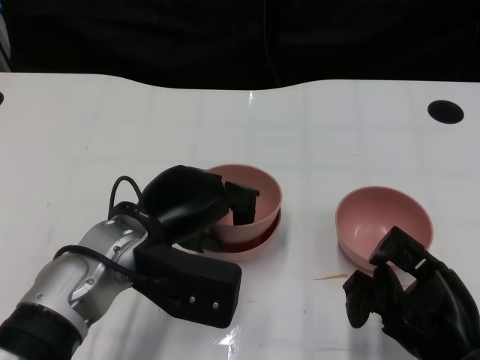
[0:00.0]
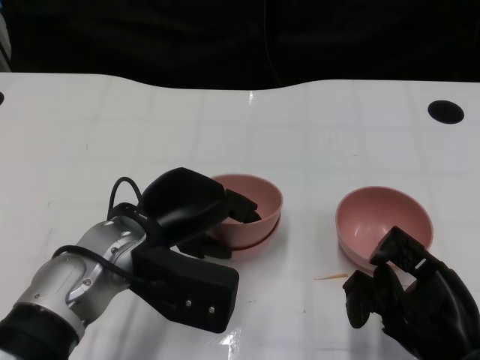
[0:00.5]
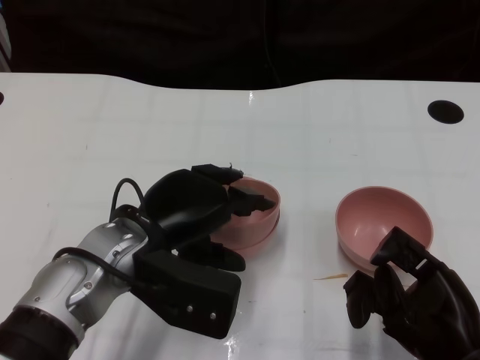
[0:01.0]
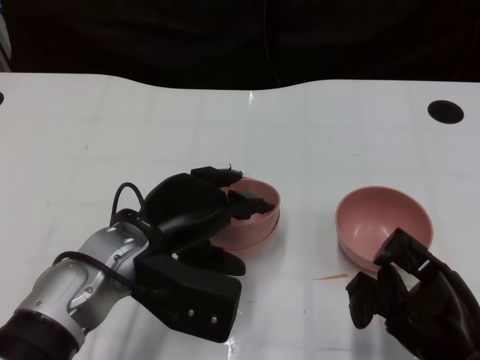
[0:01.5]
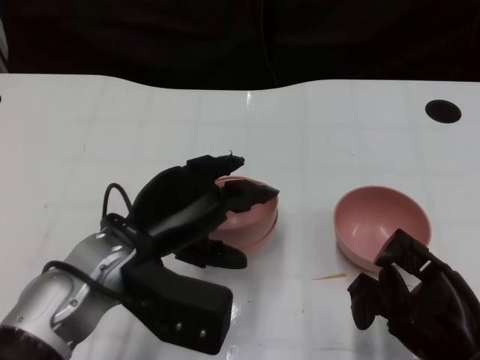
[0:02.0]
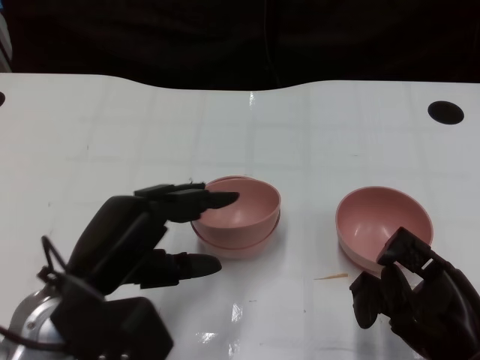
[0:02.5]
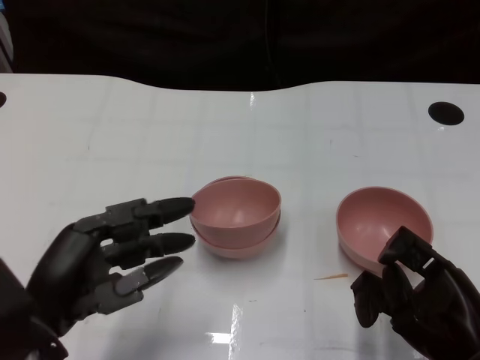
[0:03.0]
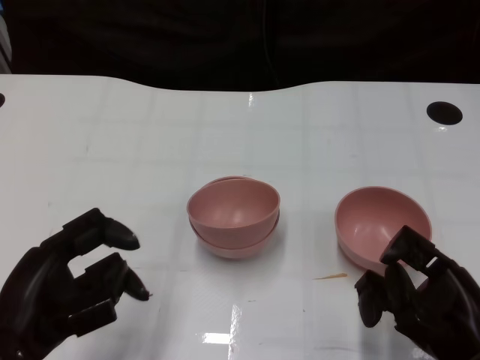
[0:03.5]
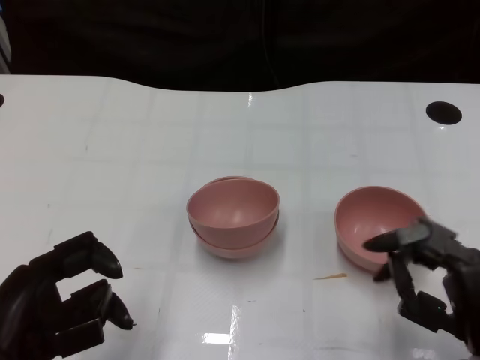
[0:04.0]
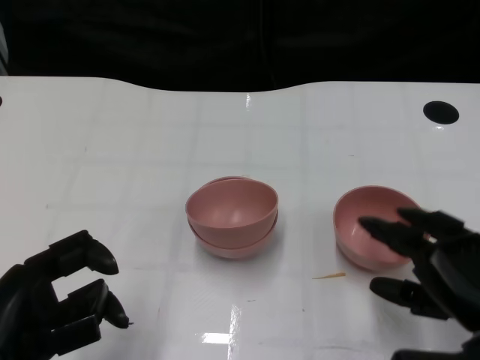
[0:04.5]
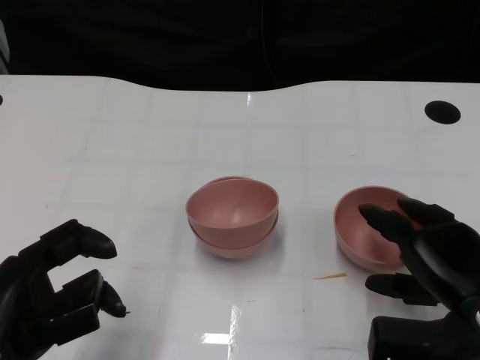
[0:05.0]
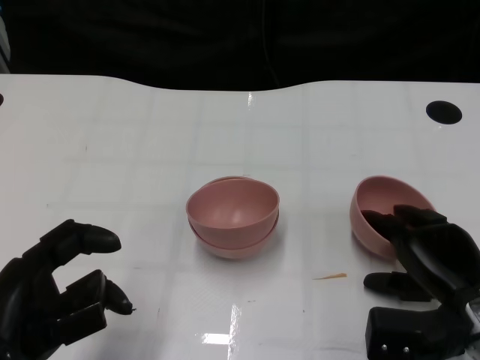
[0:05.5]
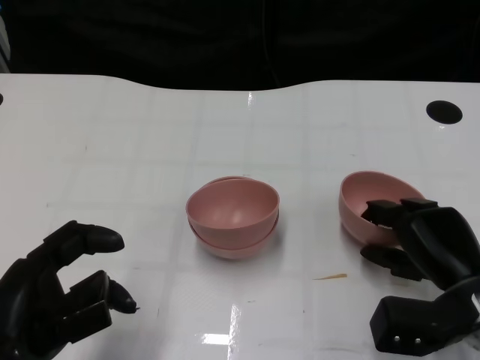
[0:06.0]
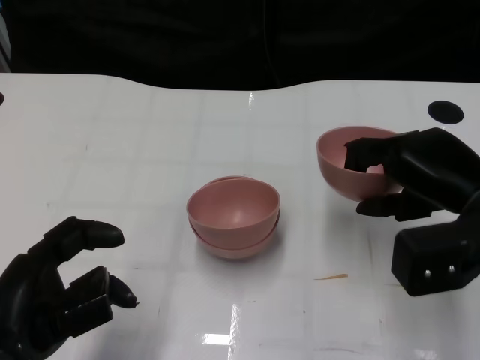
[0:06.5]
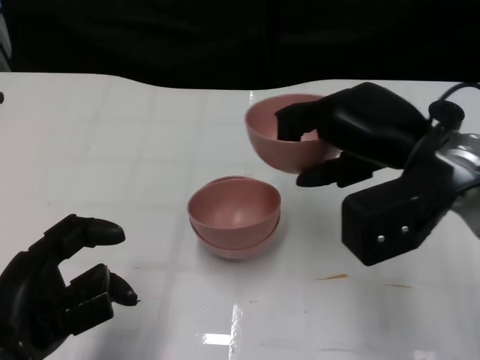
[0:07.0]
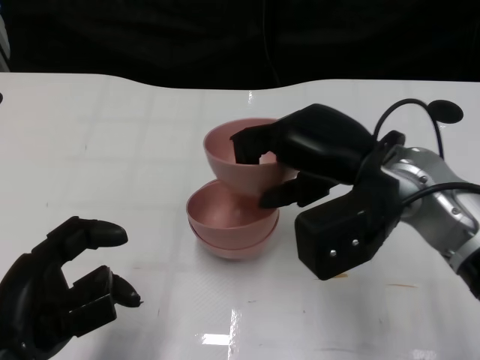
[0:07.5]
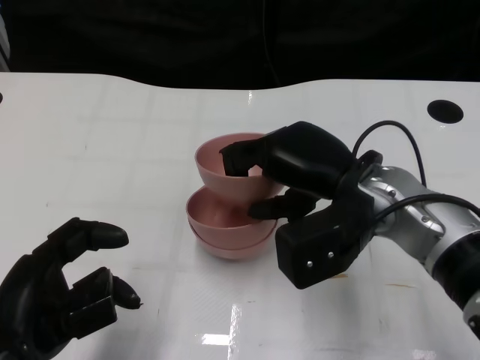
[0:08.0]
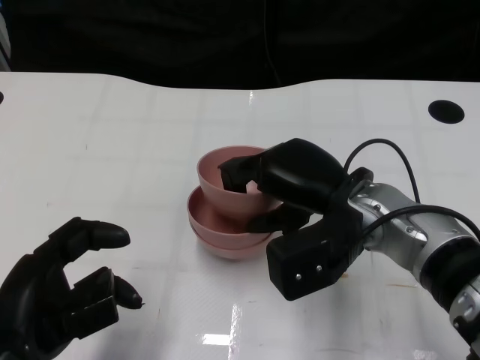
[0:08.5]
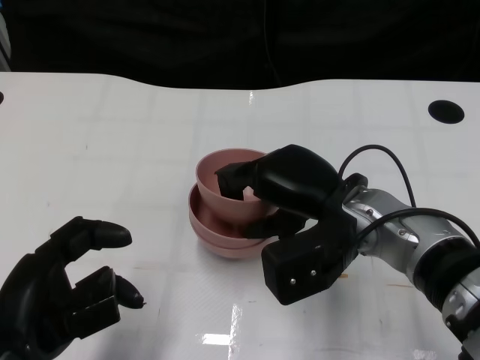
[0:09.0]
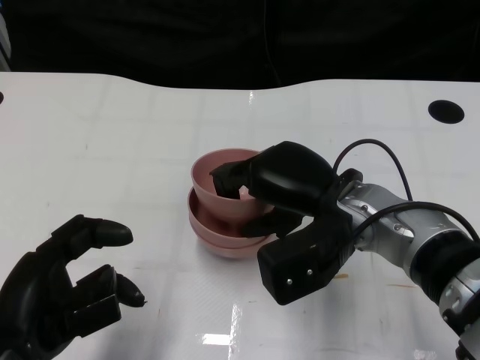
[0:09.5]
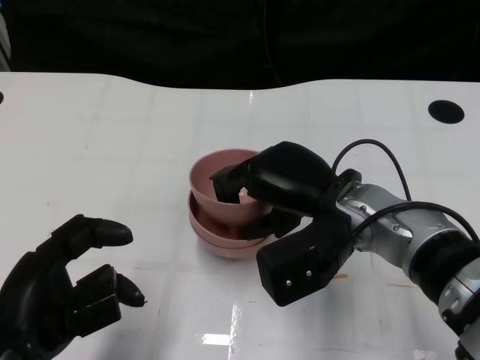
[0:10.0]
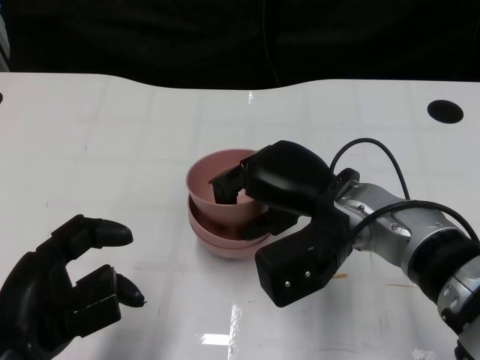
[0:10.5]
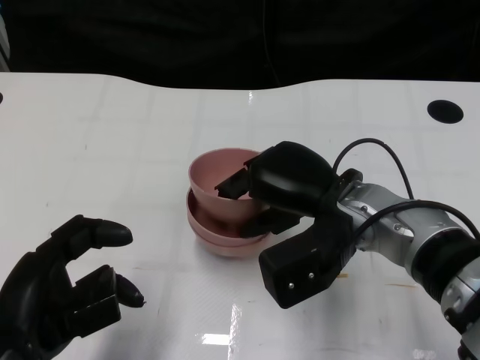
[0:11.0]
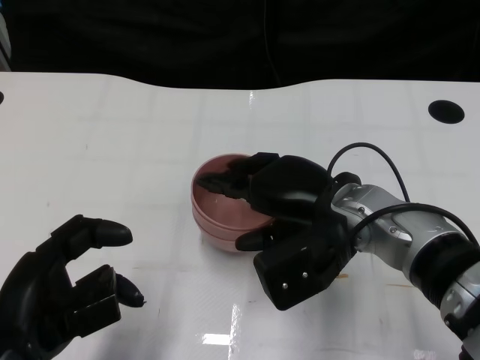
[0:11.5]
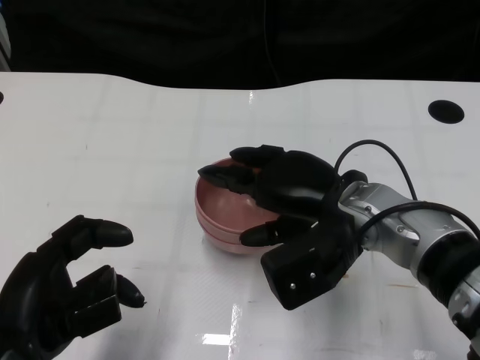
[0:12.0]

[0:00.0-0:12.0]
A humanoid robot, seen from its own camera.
Task of the whole recording: Pick up the bowl on one side of the table and place it on top of the middle bowl, then pick up the bowl on the other side of the table and place it on top of the middle bowls.
Step, 0:02.0 to 0:06.0: Grasp the bowl on the right with the right gripper.
Step, 0:06.5 to 0:11.5: Place the bowl on the right onto the bowl in the middle with right gripper.
0:00.0 to 0:02.0: The hands stay close to where they were, moving slightly.
0:02.0 to 0:04.0: The left hand is displaced backward and to the left by about 15 cm.
0:04.0 to 0:06.0: The right hand heads forward, covering about 10 cm.
0:06.0 to 0:08.0: The right hand shifts roughly 15 cm upward, to the left and forward.
0:08.0 to 0:12.0: The hands stay close to where they were, moving slightly.

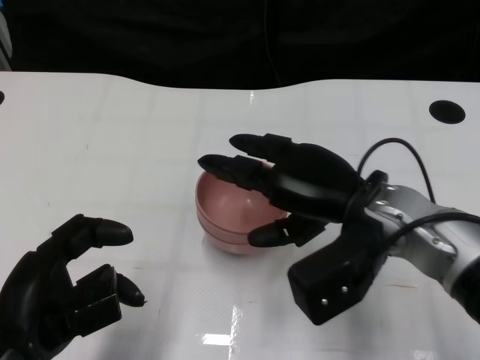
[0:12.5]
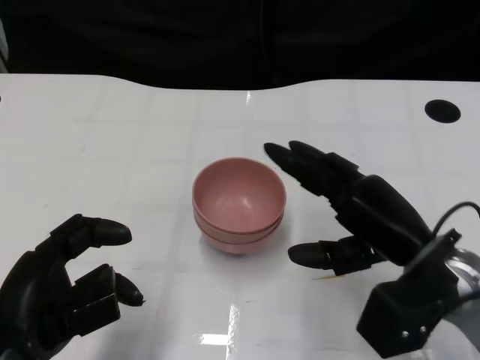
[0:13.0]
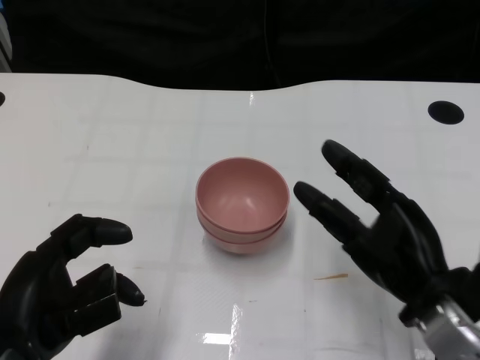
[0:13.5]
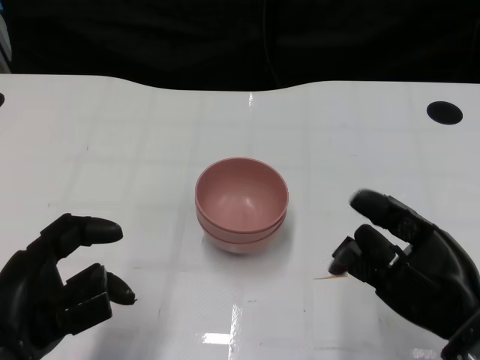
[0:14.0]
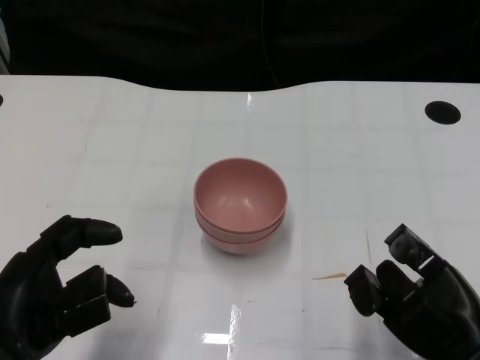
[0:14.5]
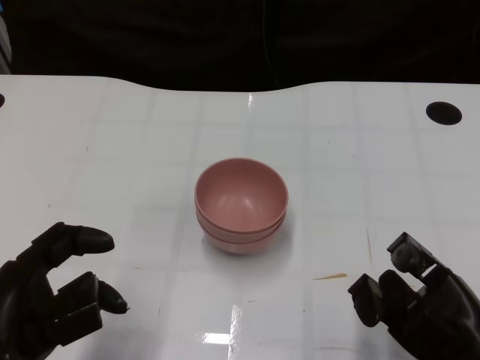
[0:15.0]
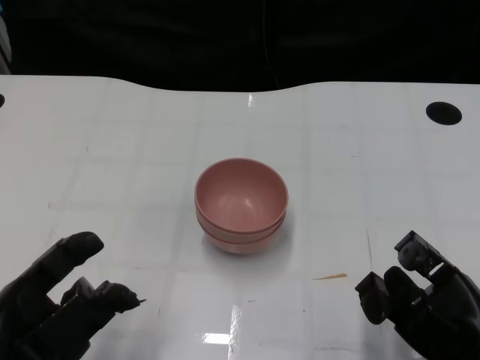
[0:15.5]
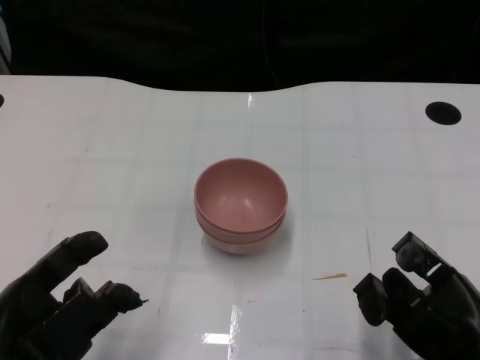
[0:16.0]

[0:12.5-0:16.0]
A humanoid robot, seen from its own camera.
Task of the whole recording: Pick up the bowl on one side of the table and place it on top of the middle bowl, then pick up the bowl on the other side of the table and place it on top of the middle bowls.
0:12.5 to 0:14.5: The right hand shifts some 20 cm backward, to the right and downward.

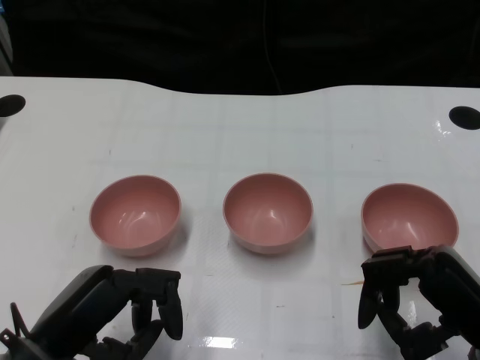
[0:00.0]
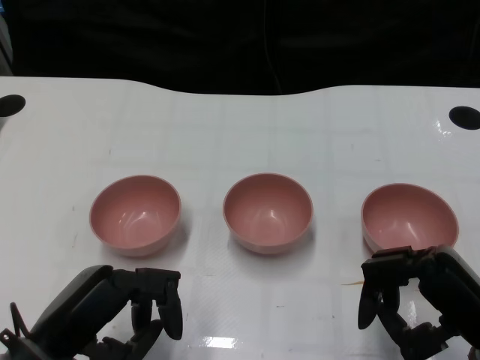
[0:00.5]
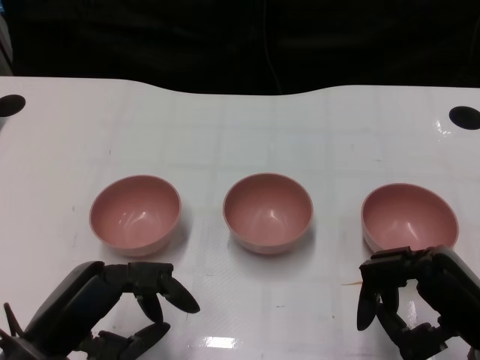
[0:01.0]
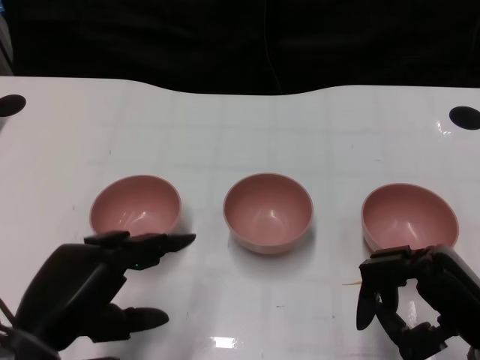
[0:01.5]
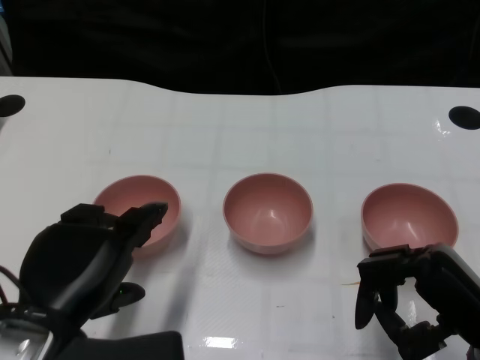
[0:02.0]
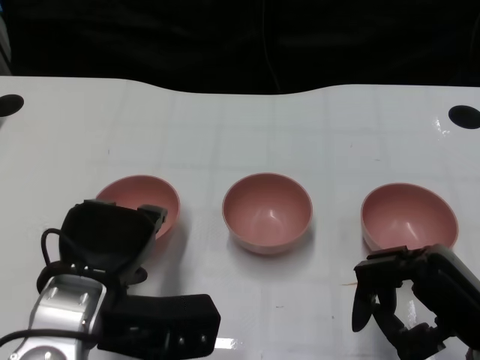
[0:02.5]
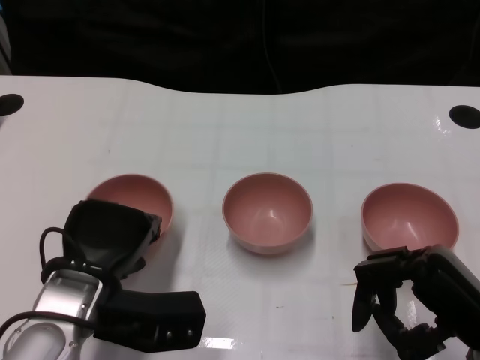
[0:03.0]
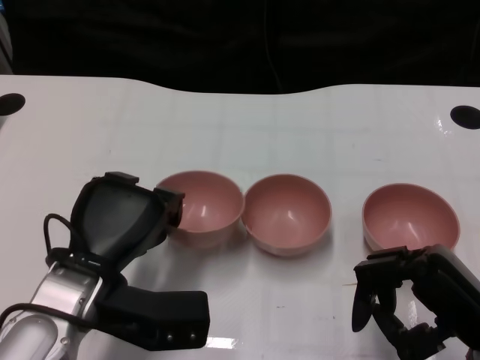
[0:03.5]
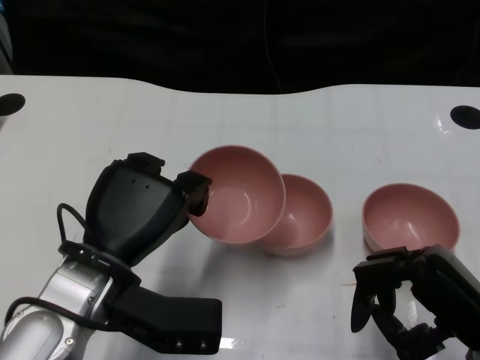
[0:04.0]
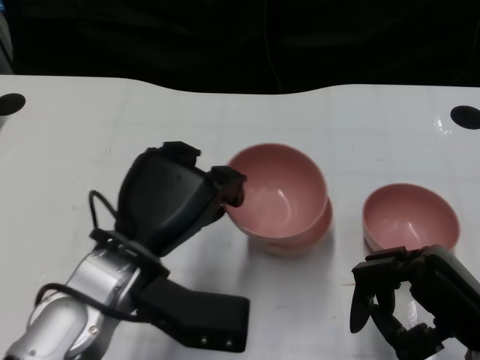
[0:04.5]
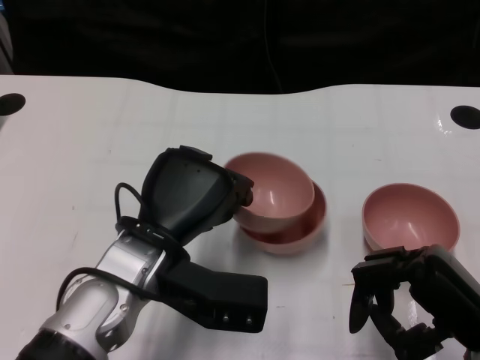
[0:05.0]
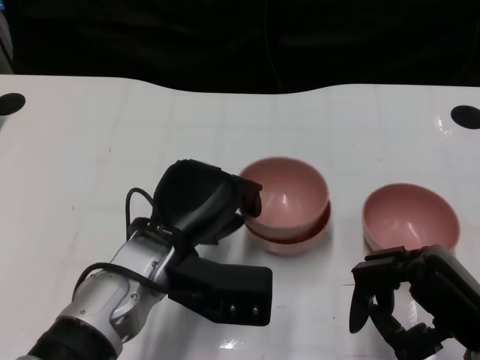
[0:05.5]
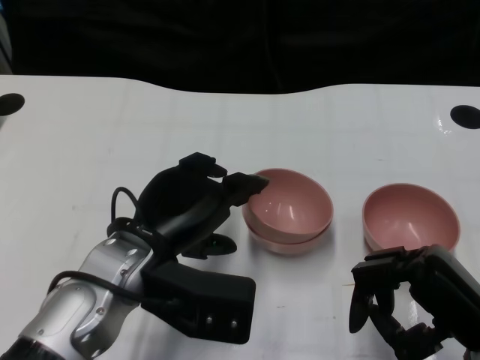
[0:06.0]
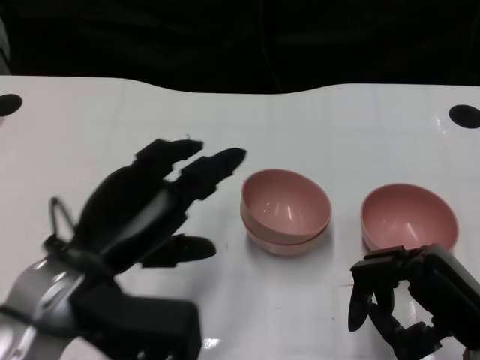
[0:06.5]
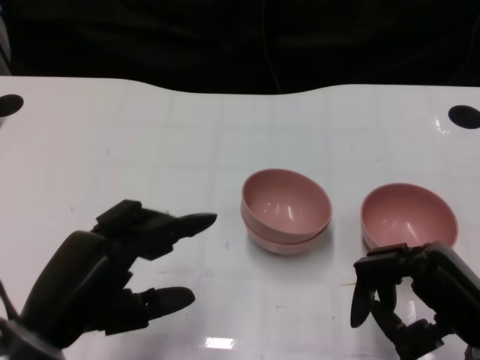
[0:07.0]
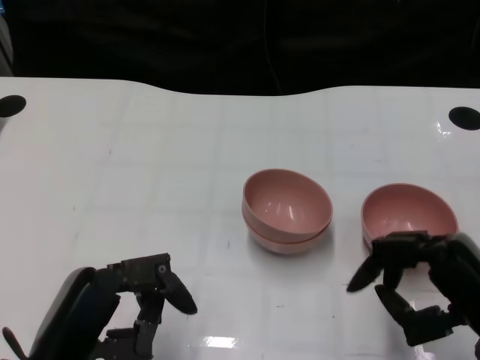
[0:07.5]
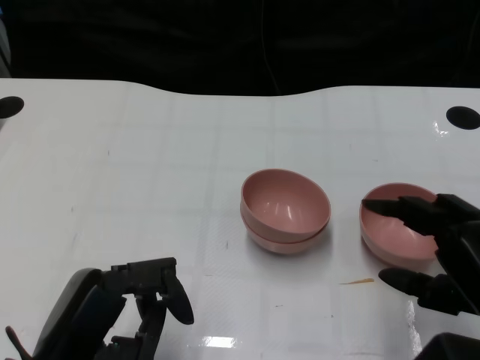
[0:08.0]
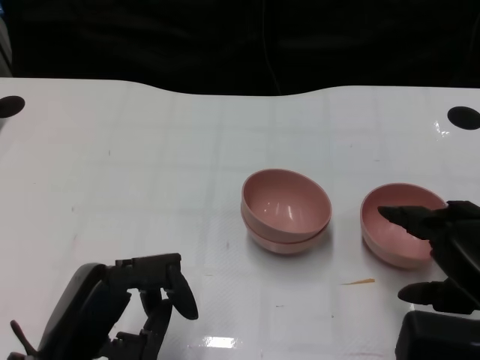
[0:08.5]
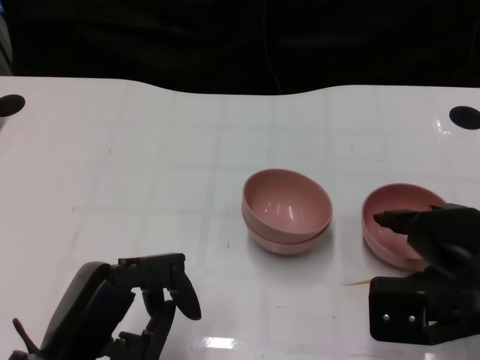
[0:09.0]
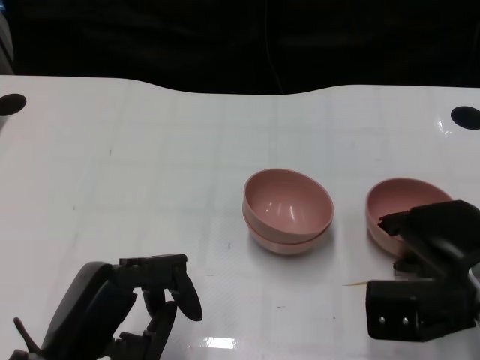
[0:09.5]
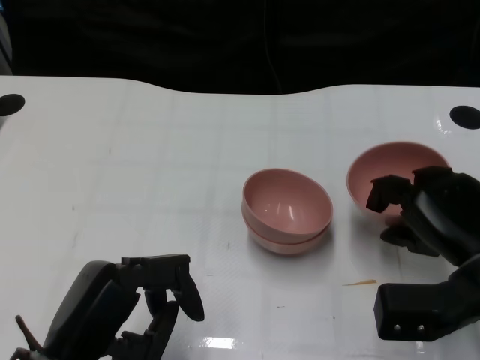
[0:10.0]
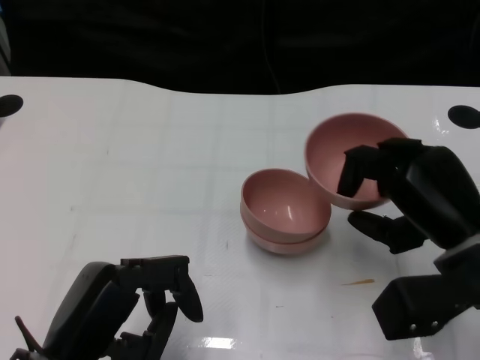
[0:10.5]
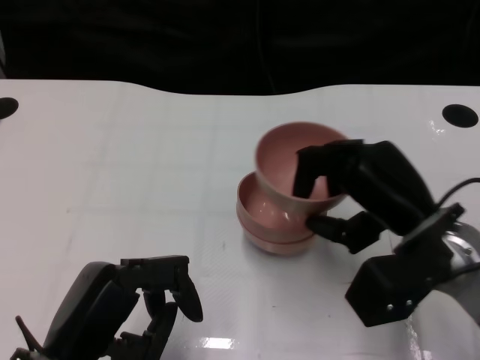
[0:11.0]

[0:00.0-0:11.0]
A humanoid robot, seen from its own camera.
Task of the whole recording: Pick up the bowl on one side of the table and place it on top of the middle bowl, then pick up the bowl on the other side of the table and place it on top of the middle bowls.
Step, 0:01.0 to 0:03.5: Grasp the bowl on the left with the left gripper.
Step, 0:04.0 to 0:05.5: Place the bowl on the left onto the bowl in the middle with left gripper.
Step, 0:06.0 to 0:09.5: Grasp the bowl on the right with the right gripper.
0:02.0 to 0:03.5: The left hand goes about 5 cm forward.
0:03.5 to 0:05.5: The left hand heads to the right, covering roughly 5 cm.
0:05.5 to 0:07.5: The left hand is displaced backward and to the left by about 15 cm.
0:07.5 to 0:09.0: The right hand shifts by approximately 5 cm.
0:09.0 to 0:11.0: The right hand moves approximately 5 cm.
